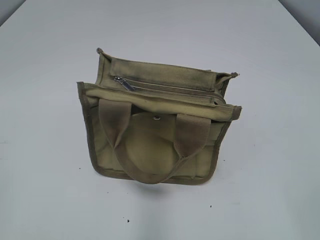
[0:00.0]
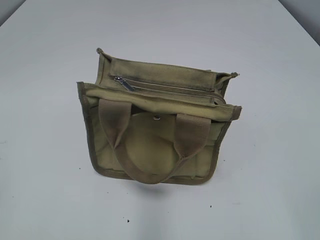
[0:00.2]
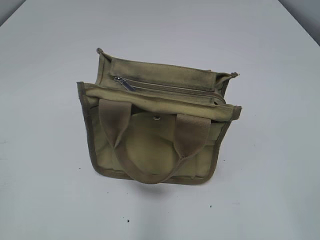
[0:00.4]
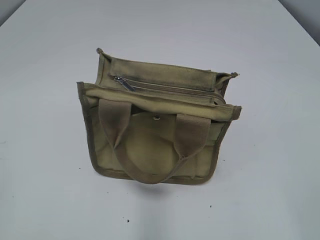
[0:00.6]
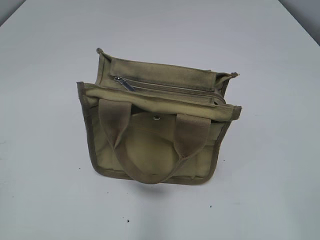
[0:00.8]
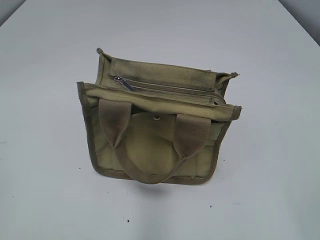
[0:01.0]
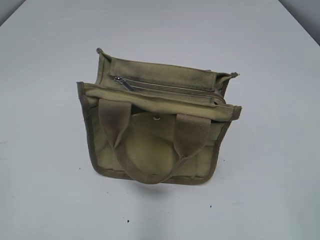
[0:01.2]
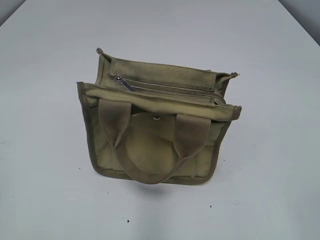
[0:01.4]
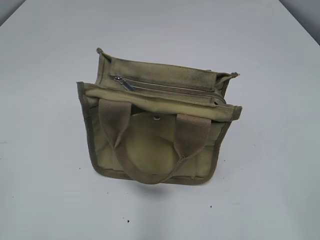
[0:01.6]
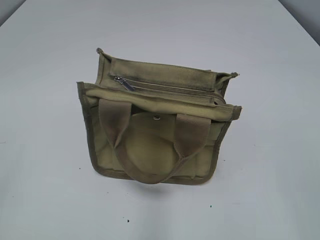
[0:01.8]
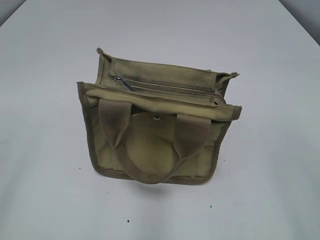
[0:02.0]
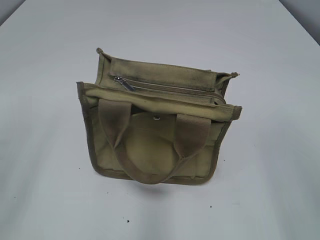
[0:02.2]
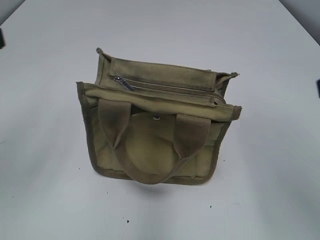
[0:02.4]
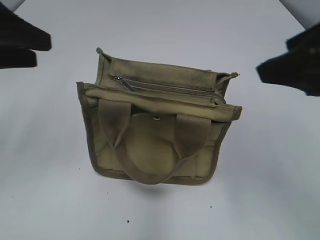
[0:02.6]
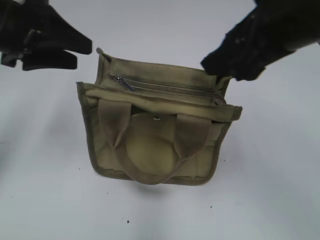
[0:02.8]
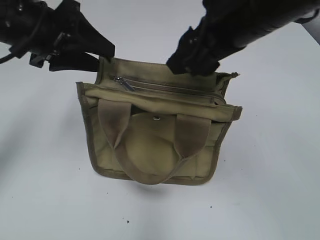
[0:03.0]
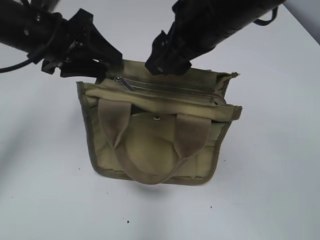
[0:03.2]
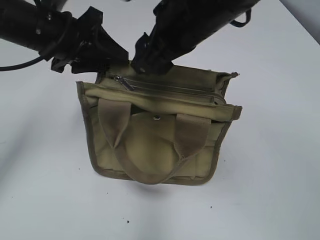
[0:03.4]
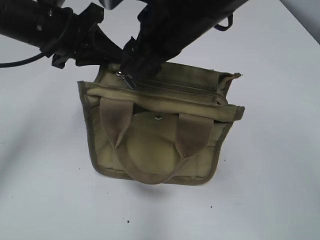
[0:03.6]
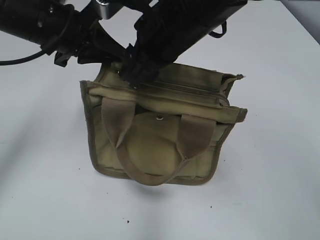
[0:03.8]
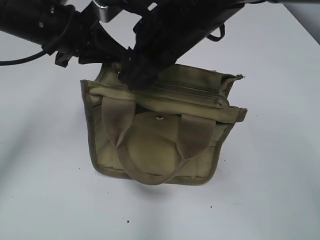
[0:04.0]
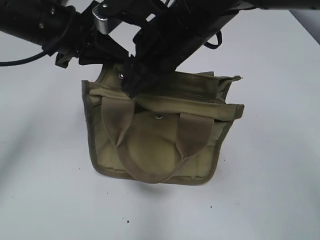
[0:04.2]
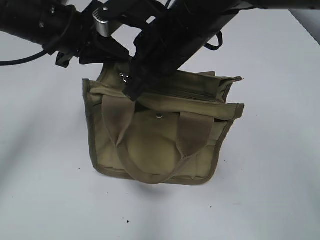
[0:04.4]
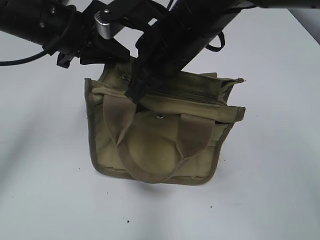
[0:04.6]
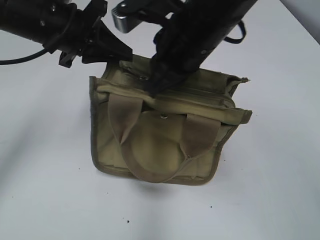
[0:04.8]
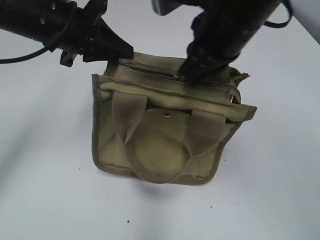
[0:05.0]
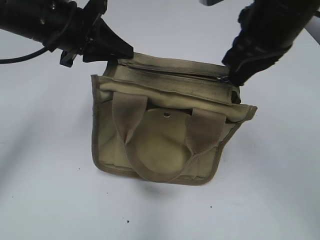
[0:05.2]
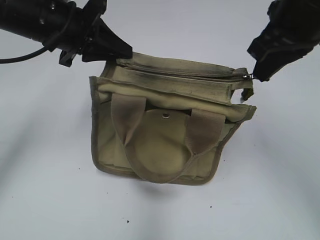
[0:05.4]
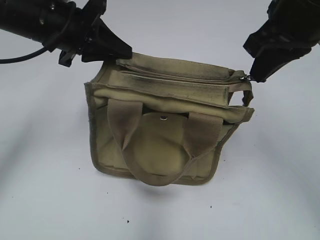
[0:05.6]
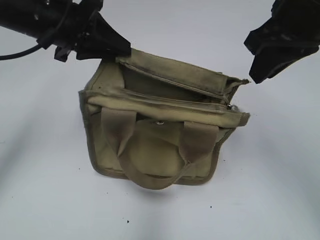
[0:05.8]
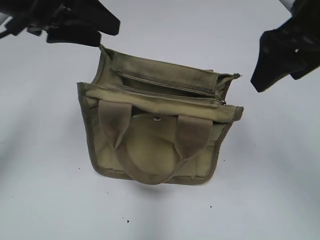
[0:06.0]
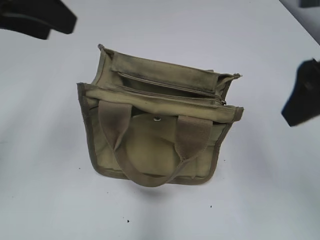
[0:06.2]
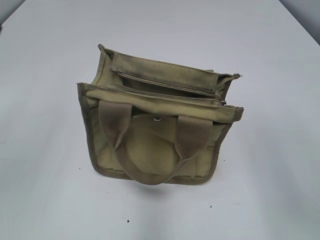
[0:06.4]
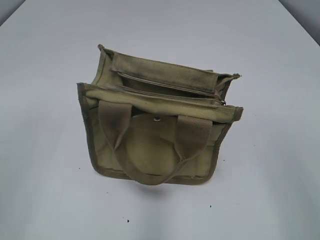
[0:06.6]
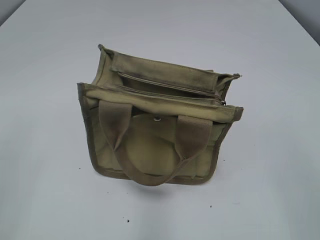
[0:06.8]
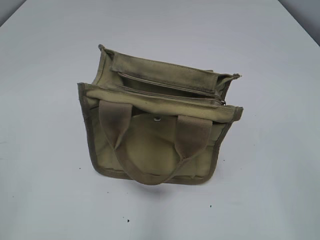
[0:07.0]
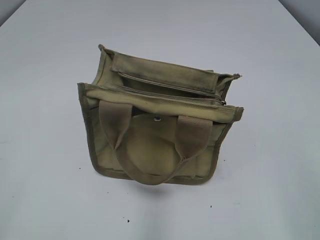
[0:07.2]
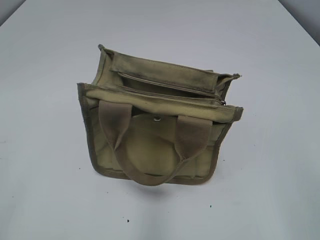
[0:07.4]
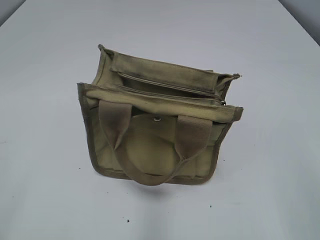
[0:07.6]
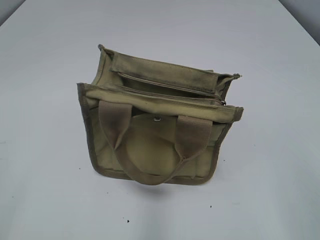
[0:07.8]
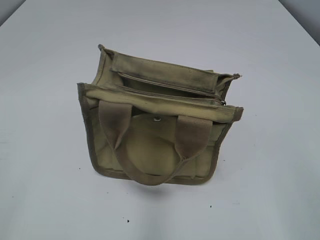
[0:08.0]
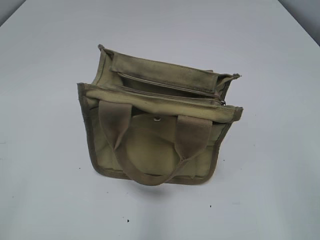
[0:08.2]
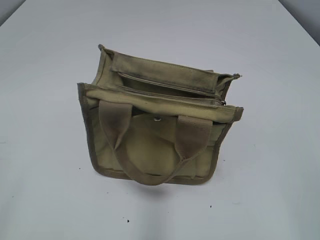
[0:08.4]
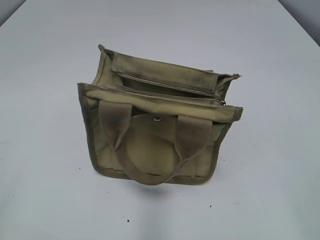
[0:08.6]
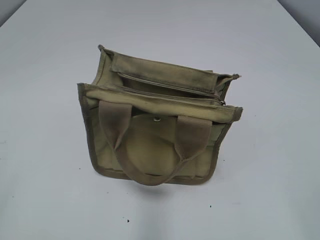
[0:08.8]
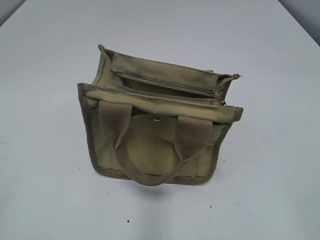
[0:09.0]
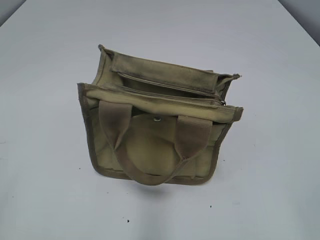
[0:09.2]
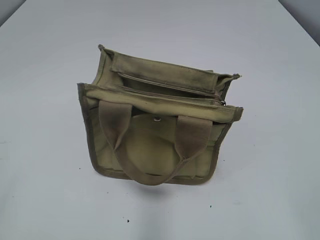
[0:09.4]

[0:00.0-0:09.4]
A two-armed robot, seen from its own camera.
Step, 0:00.0 to 0:05.6: Pull open the zipper with your right hand.
Step, 0:05.8 to 0:06.0: Hold the bag with your left hand.
0:01.6 to 0:03.2: The left gripper goes about 35 cm forward and to the right. The right gripper shifts some 35 cm forward and to the left.
0:03.2 to 0:04.8: The right gripper closes. Meanwhile the left gripper closes.
0:04.8 to 0:06.2: The left gripper travels upward and backward by approximately 10 cm, and opens its fingers, while the right gripper goes about 15 cm to the right and backward, and opens up.
0:06.2 to 0:07.8: The left gripper is displaced backward and to the left by approximately 30 cm; the right gripper travels backward by approximately 20 cm.

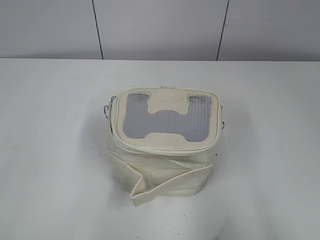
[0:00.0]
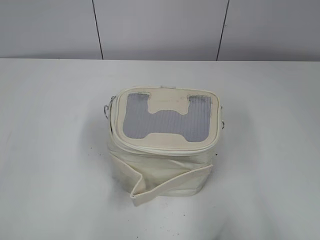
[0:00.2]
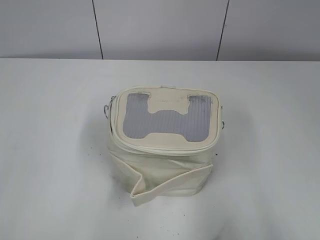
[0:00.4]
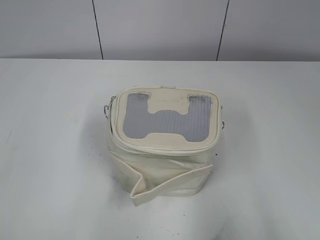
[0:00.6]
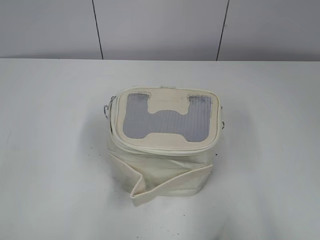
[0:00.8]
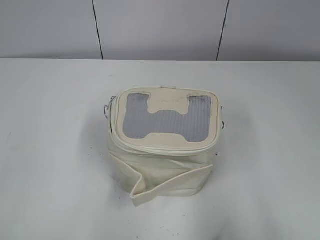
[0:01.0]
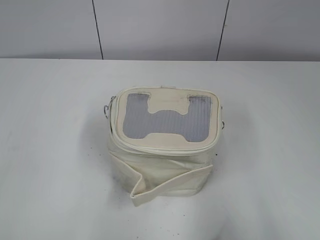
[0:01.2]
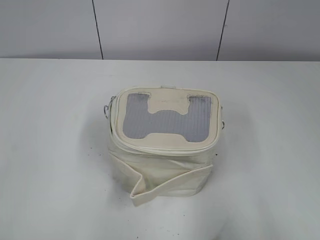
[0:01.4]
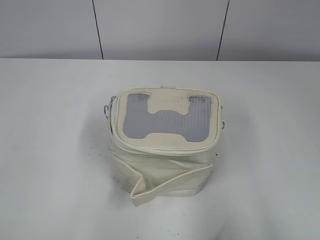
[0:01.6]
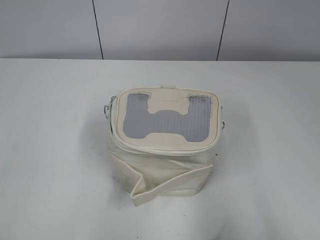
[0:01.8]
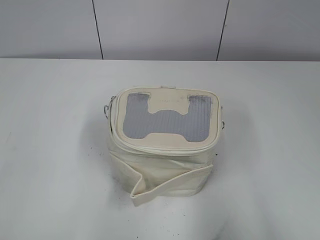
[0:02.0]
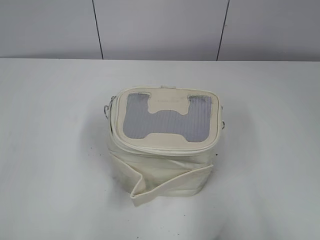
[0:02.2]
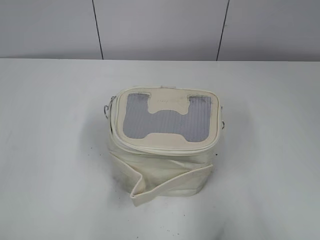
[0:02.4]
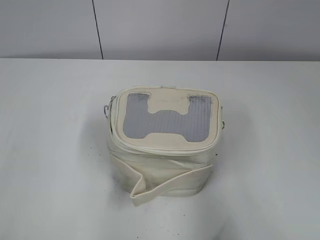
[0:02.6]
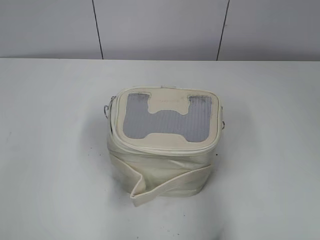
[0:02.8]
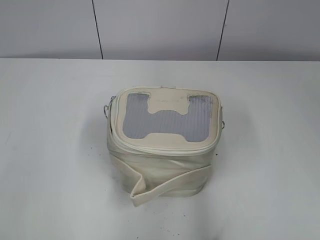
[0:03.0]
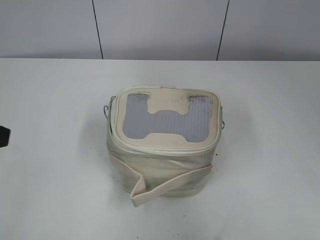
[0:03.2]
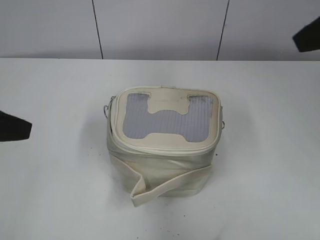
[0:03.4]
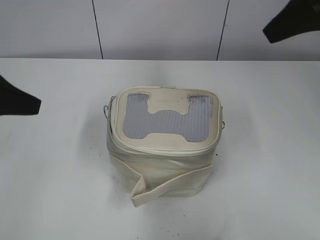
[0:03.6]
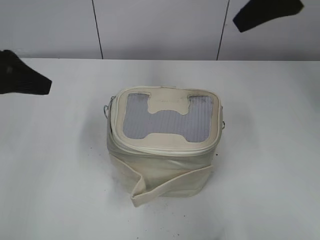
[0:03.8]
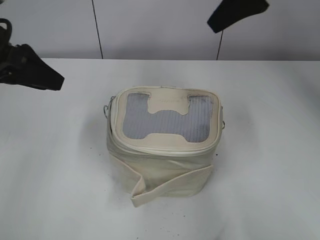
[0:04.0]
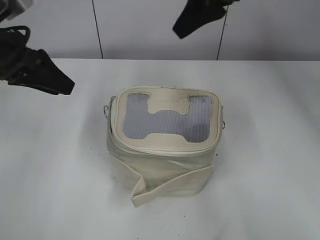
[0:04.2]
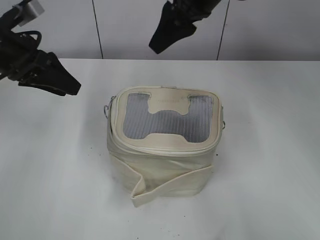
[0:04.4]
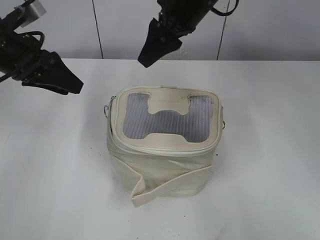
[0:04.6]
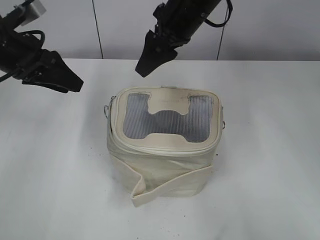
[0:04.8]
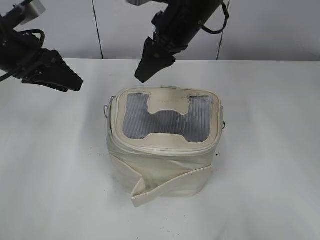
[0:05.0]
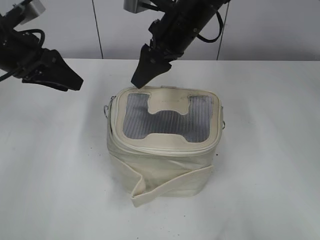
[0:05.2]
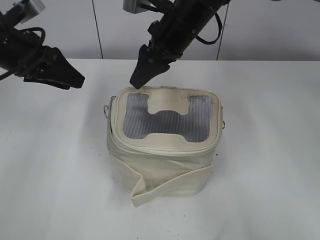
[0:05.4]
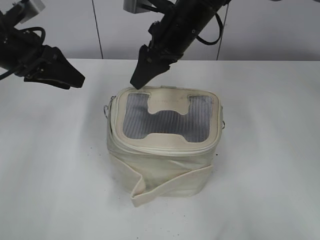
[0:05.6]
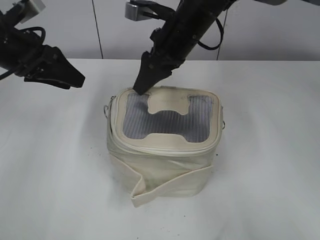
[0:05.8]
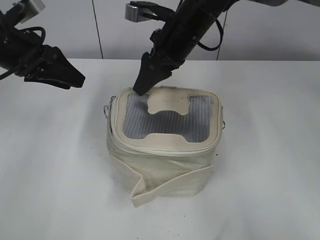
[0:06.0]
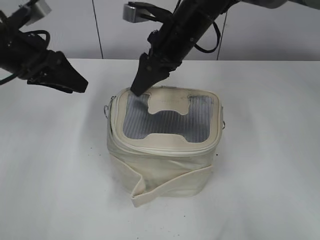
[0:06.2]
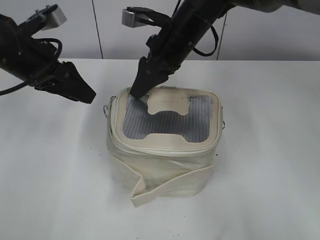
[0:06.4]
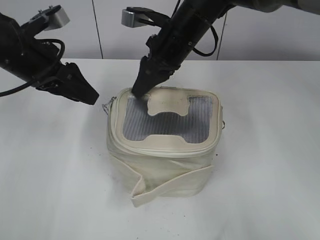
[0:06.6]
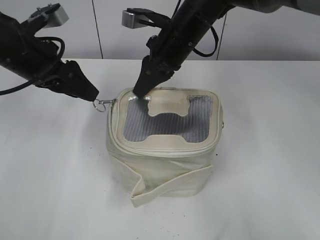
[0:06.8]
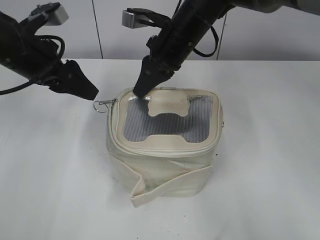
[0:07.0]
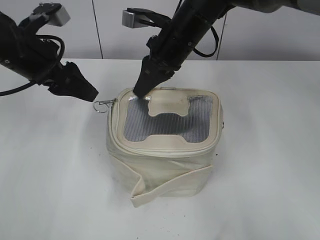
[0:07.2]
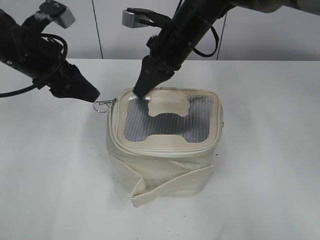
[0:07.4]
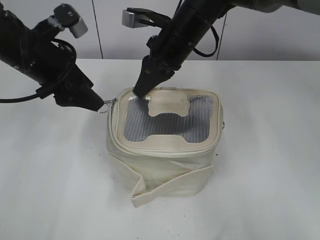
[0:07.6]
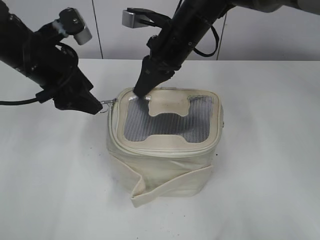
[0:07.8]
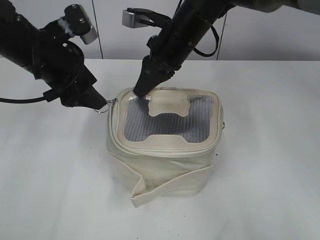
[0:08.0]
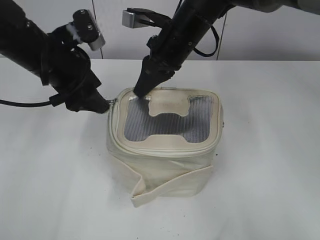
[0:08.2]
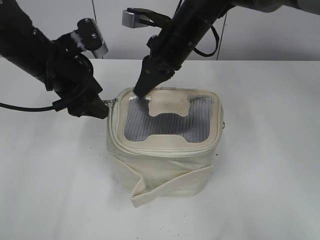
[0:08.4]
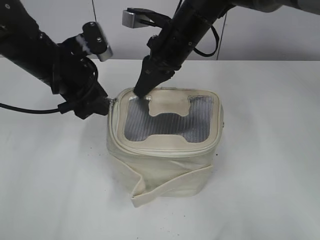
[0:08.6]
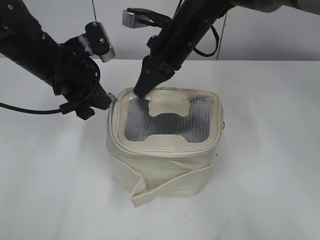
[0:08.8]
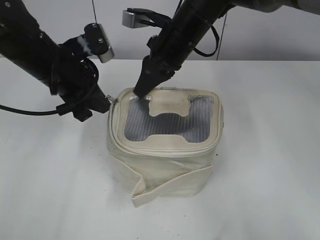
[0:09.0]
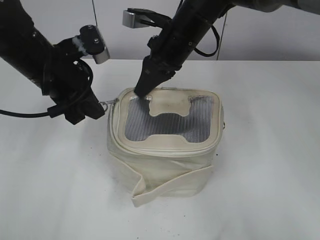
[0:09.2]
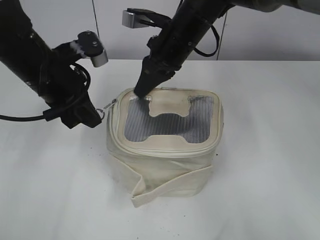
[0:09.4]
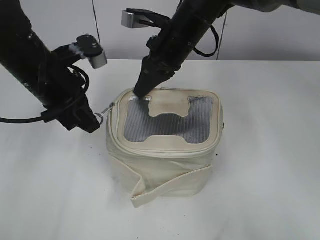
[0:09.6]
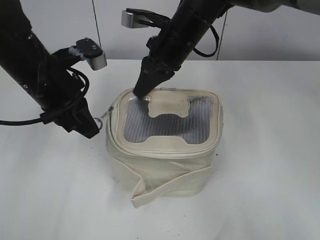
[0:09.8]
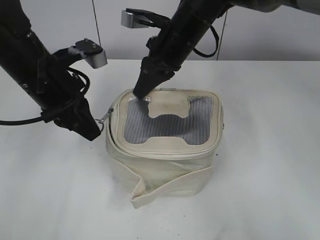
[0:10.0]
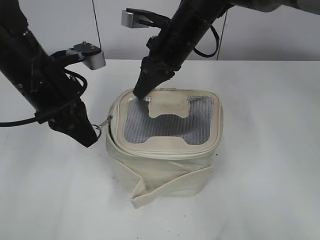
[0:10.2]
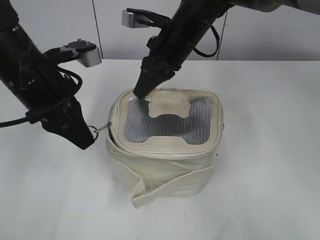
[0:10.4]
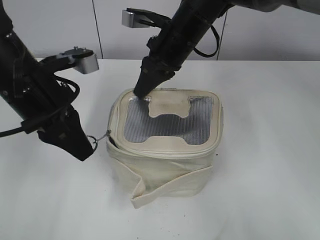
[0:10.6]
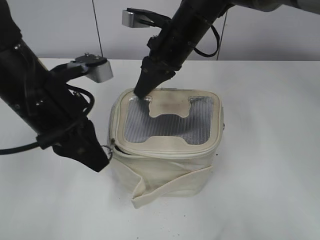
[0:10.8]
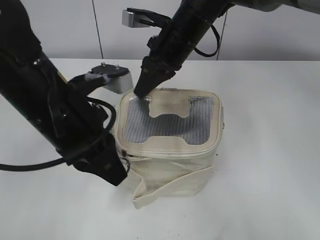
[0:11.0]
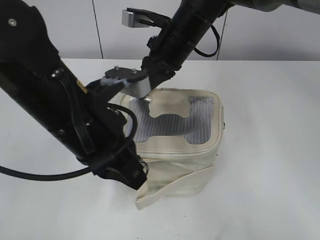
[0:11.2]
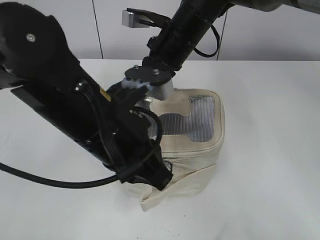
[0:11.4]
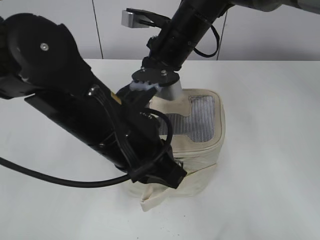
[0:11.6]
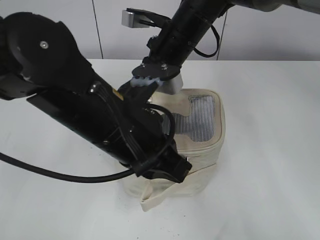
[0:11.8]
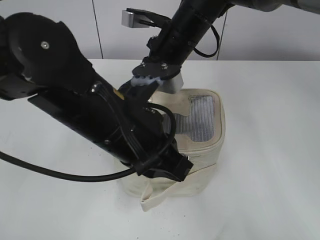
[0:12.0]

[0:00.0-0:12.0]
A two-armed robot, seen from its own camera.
0:01.6 to 0:03.0: The right gripper shifts about 15 cm forward and upward. The left gripper heads forward, covering some 10 cm.
0:03.0 to 0:04.4: The left gripper is displaced forward by roughly 20 cm; the right gripper shifts about 35 cm forward and to the left.
0:04.4 to 0:06.0: The right gripper heads downward, covering some 10 cm.
0:06.0 to 0:07.6: The right gripper closes.
0:07.6 to 0:09.0: The left gripper closes up.
0:09.0 to 0:10.4: The left gripper shifts by some 5 cm.
0:10.4 to 0:12.0: The left gripper travels to the right and backward by some 15 cm.

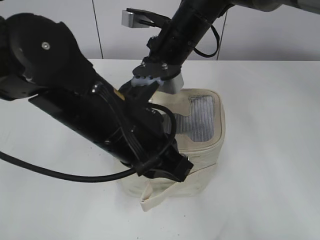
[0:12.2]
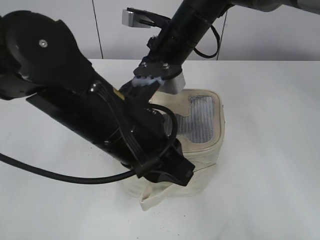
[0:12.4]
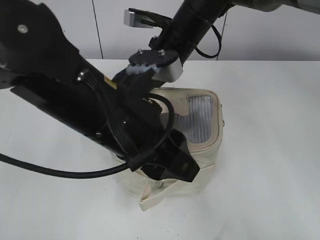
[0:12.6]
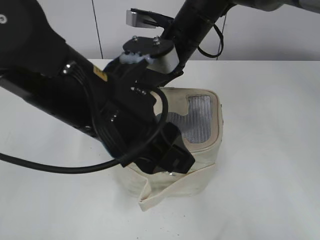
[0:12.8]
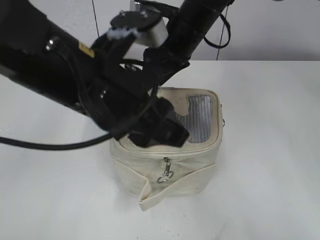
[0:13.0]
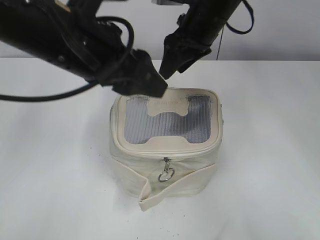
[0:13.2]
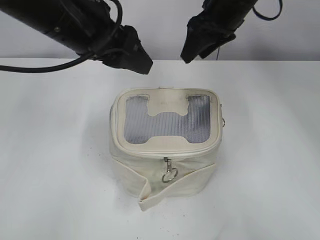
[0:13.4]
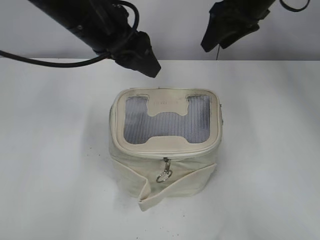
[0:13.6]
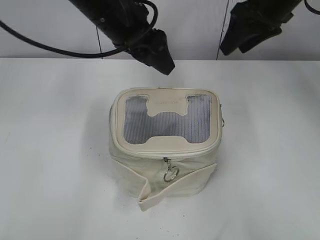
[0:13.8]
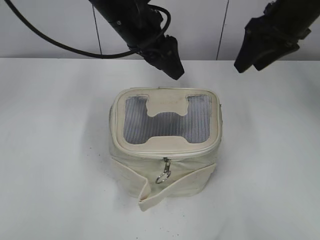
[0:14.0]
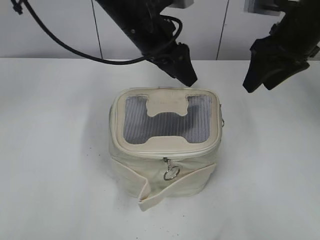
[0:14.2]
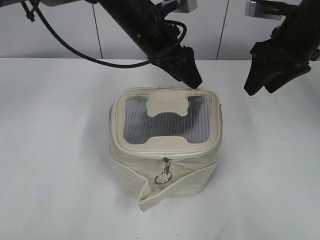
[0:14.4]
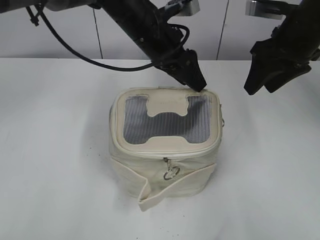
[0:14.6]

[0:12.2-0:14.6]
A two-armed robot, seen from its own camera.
Step, 0:12.6 to 0:13.0: Hold the bag with your right hand.
0:12.2 to 0:13.4: The left gripper travels forward, upward and to the left by about 15 cm, and opens its fingers. Meanwhile the right gripper travels to the right and upward by some 10 cm, and opens its fingers.
0:13.4 to 0:14.6: The left gripper is displaced forward, to the right and downward by approximately 15 cm. Meanwhile the right gripper shifts some 10 cm to the right and backward.
